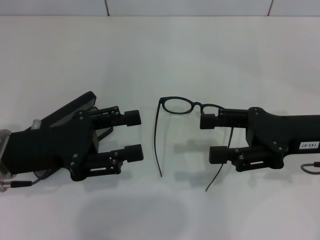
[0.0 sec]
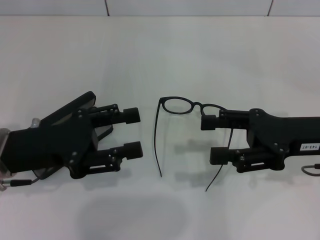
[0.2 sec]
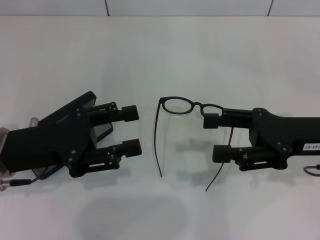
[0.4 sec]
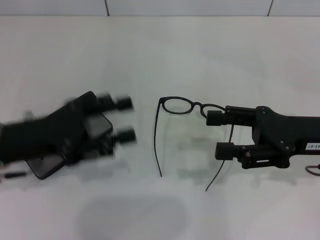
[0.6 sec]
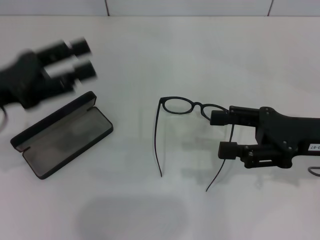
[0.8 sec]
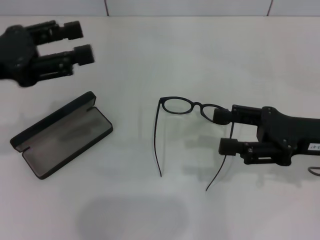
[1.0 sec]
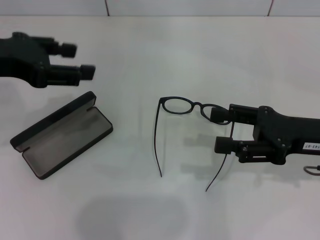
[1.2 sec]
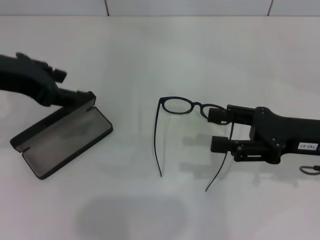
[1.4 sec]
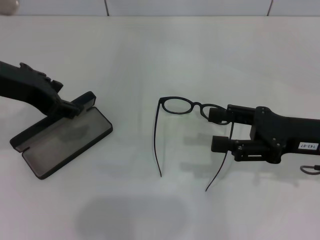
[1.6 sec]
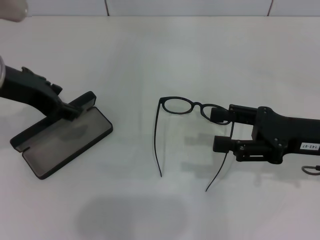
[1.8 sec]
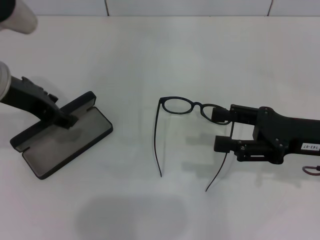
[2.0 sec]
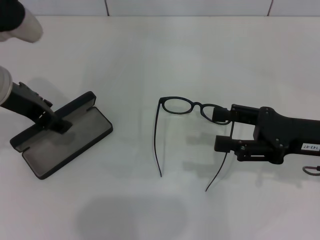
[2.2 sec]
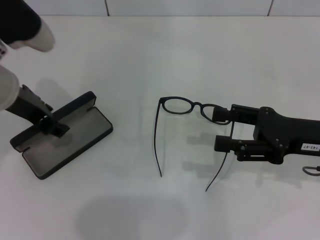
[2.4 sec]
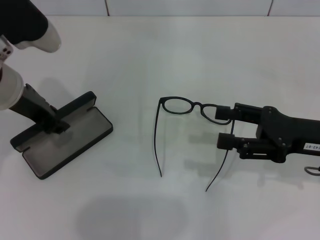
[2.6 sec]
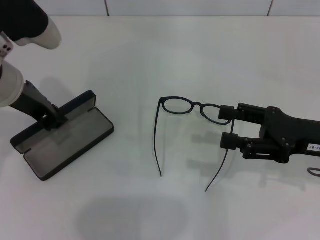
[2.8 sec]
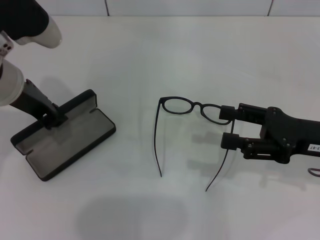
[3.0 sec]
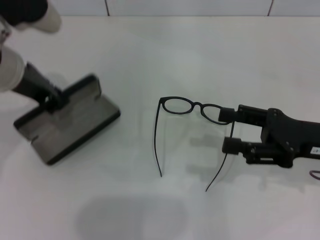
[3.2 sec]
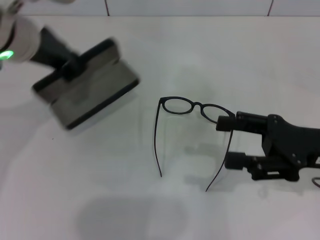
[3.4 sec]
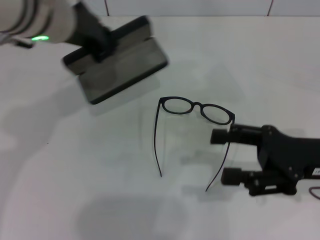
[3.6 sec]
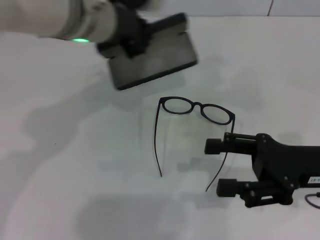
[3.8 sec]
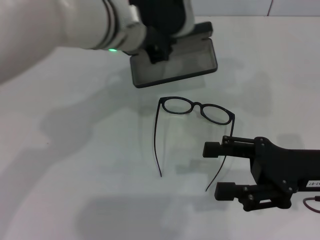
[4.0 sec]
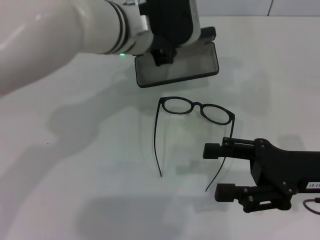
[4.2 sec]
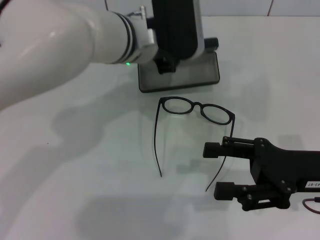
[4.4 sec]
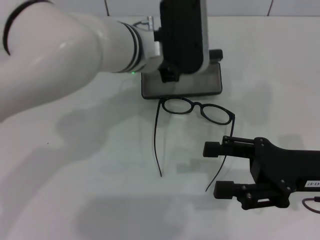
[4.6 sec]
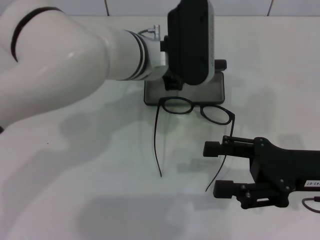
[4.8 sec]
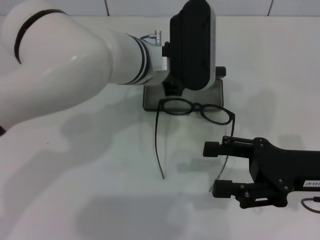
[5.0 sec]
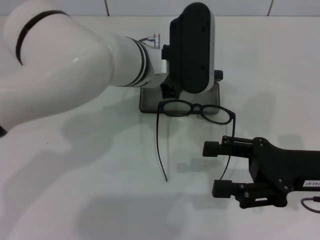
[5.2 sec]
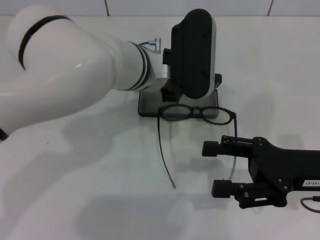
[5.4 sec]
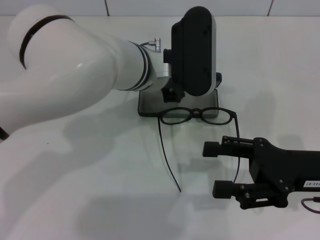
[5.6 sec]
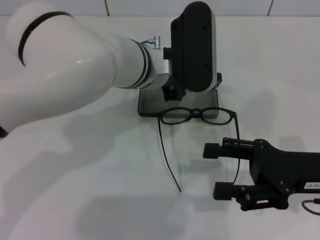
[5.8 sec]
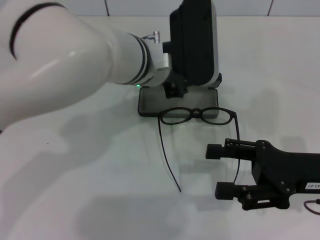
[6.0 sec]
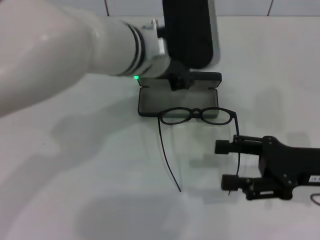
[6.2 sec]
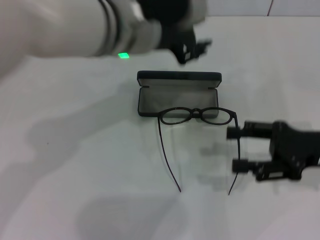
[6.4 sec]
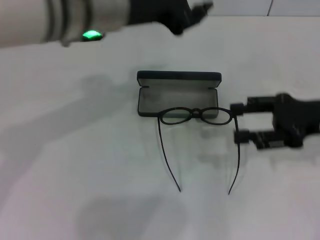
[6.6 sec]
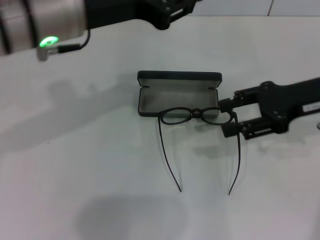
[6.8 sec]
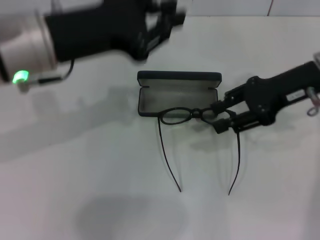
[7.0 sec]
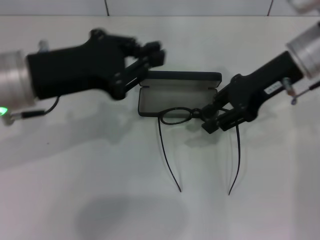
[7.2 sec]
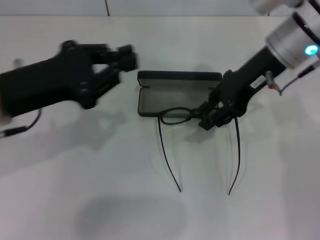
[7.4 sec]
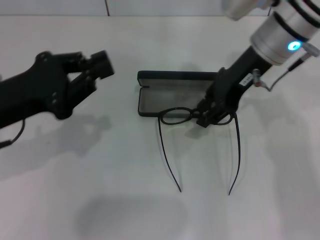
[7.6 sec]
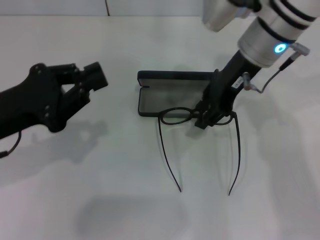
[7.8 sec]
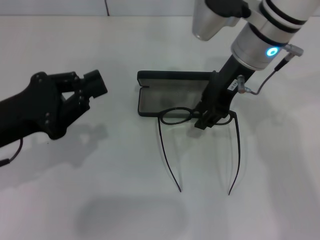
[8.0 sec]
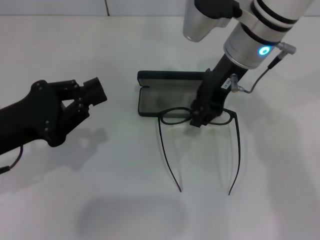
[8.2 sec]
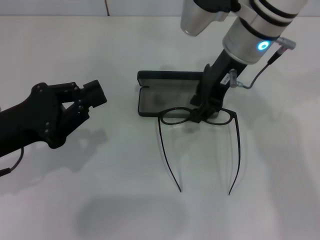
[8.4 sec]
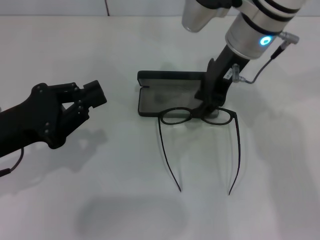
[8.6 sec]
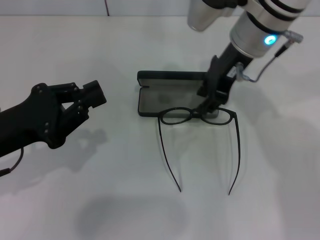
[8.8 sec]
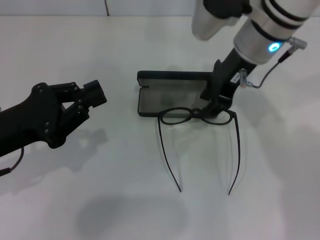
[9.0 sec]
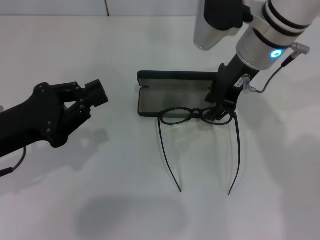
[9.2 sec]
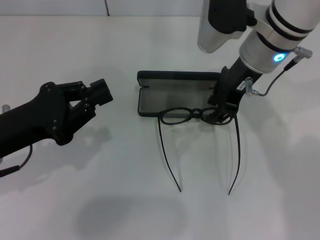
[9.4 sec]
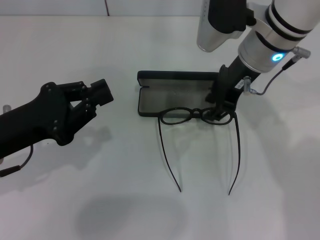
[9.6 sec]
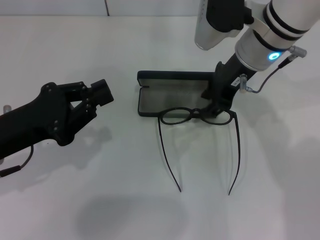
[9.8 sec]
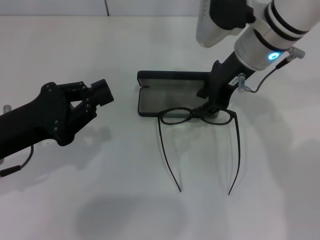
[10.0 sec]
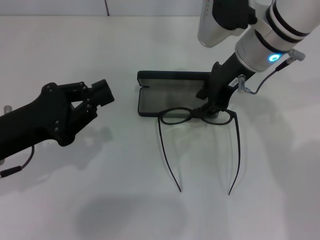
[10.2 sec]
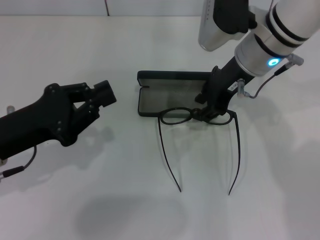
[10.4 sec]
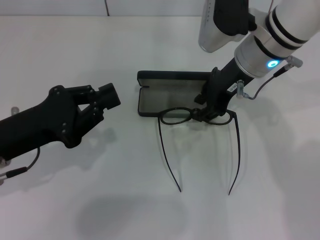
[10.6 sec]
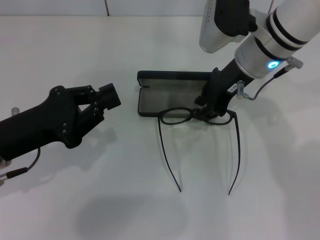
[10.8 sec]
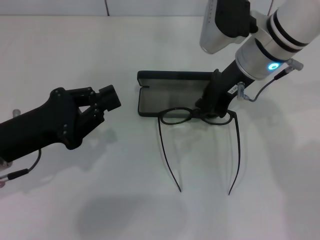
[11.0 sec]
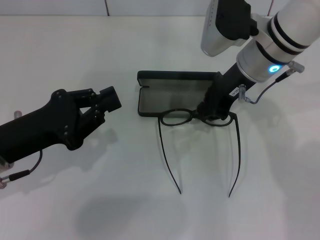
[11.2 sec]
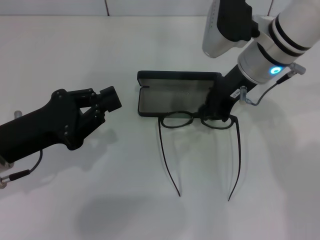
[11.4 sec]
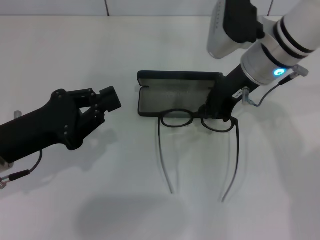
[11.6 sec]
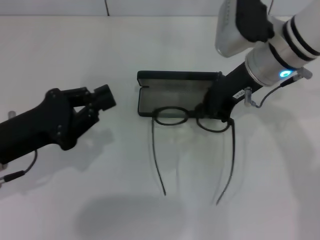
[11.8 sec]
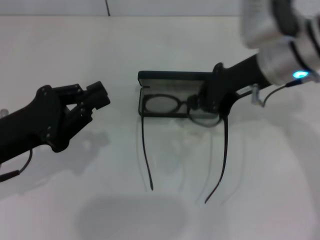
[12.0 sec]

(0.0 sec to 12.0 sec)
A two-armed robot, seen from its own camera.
Step, 0.0 sec - 2.8 sec: Grab the glasses case with your left hand.
Step, 3.2 sec - 5.8 sec: Place the glasses case in the center of the table with your left hand.
Step, 6.2 sec - 11.2 sec: Grab the eyeglass frame with your right hand.
0.0 sec - 1.6 sec: The left gripper goes about 15 cm upward and forward.
1.6 sec - 3.0 sec: The left gripper moves about 5 cm, and closes up.
3.0 sec - 4.4 sec: The left gripper travels to the right by some 15 cm.
6.0 sec - 7.6 sec: The right gripper moves forward, to the left and upward, approximately 20 cm, and closes up, while the left gripper goes about 25 cm to the left and backward, and closes.
7.6 sec - 10.4 sec: The grippers move only a little.
10.4 sec - 12.0 sec: The right gripper closes.

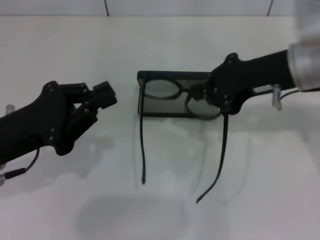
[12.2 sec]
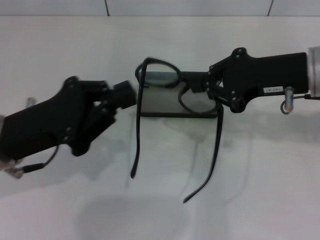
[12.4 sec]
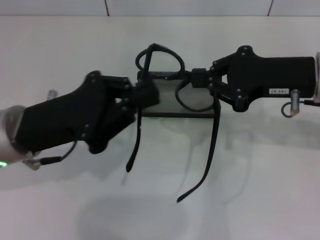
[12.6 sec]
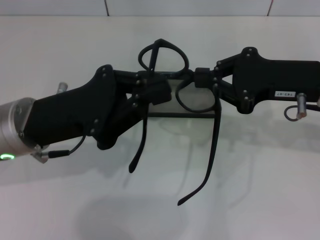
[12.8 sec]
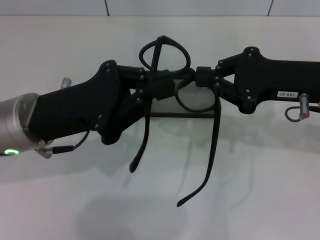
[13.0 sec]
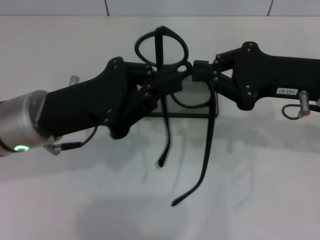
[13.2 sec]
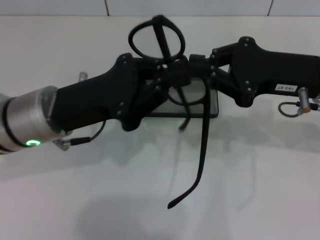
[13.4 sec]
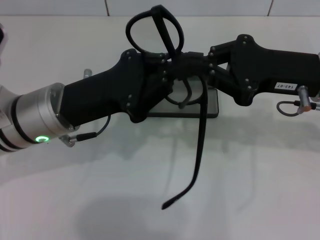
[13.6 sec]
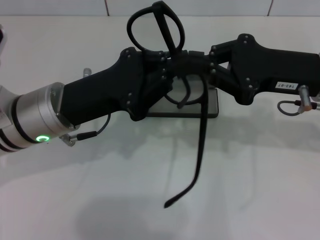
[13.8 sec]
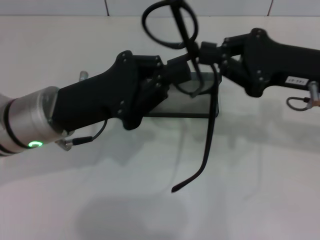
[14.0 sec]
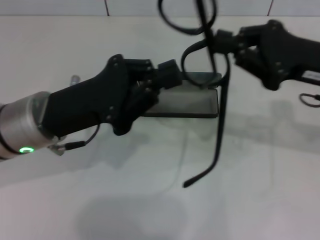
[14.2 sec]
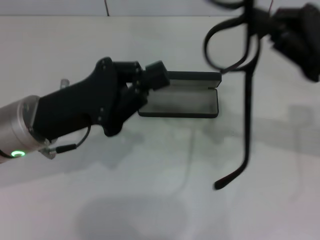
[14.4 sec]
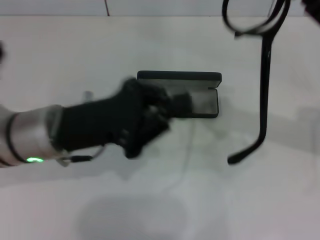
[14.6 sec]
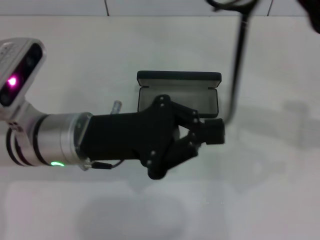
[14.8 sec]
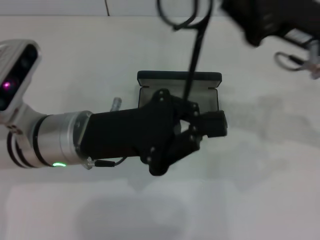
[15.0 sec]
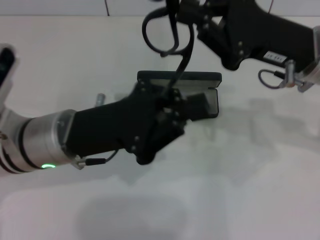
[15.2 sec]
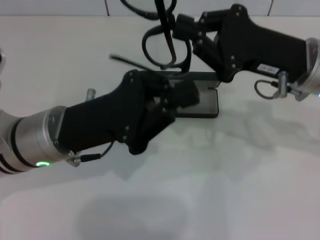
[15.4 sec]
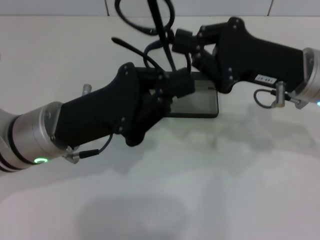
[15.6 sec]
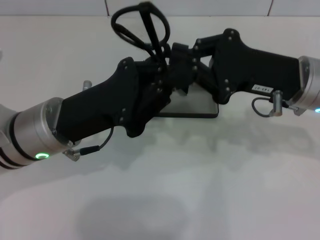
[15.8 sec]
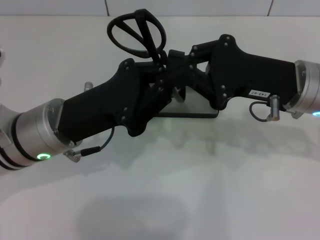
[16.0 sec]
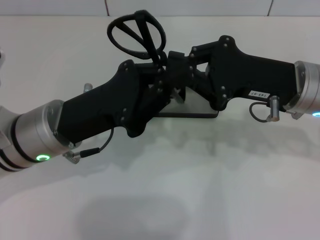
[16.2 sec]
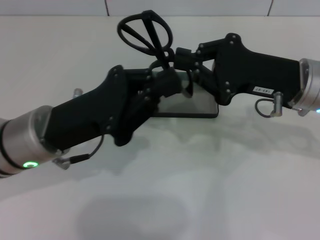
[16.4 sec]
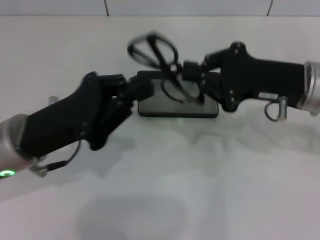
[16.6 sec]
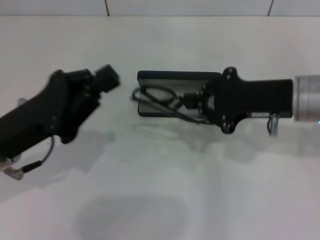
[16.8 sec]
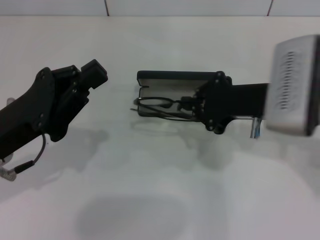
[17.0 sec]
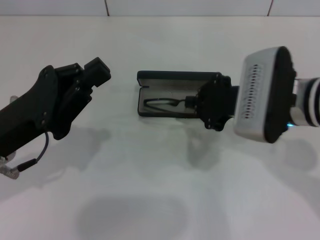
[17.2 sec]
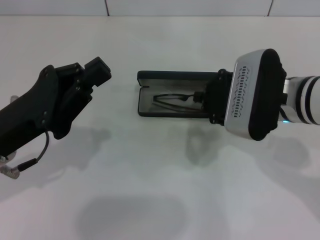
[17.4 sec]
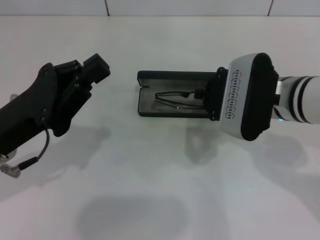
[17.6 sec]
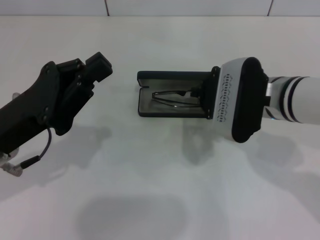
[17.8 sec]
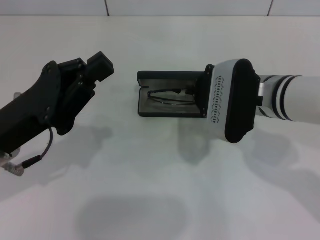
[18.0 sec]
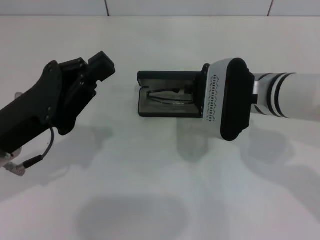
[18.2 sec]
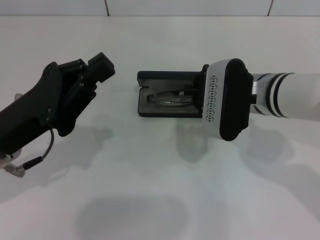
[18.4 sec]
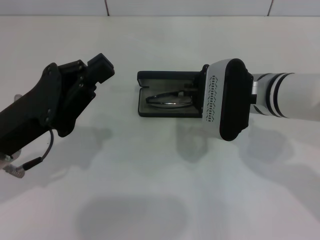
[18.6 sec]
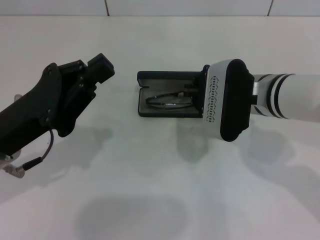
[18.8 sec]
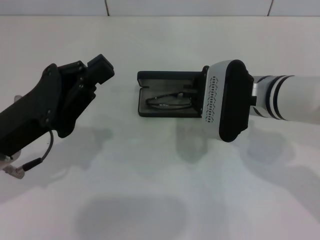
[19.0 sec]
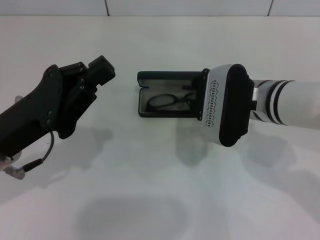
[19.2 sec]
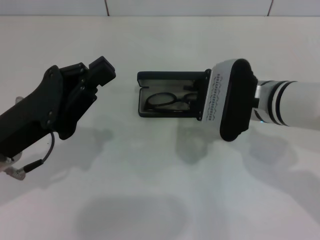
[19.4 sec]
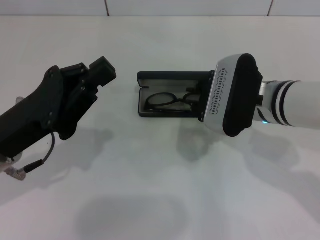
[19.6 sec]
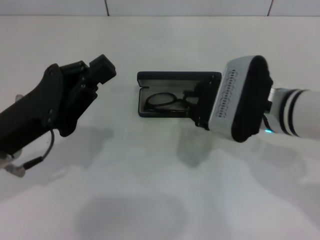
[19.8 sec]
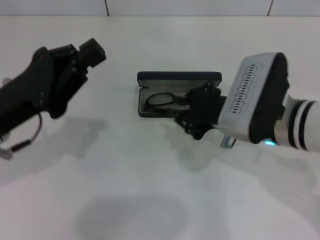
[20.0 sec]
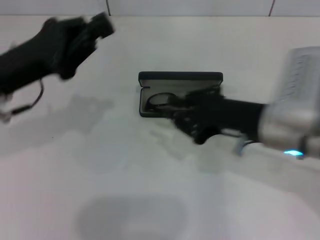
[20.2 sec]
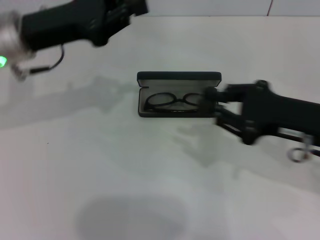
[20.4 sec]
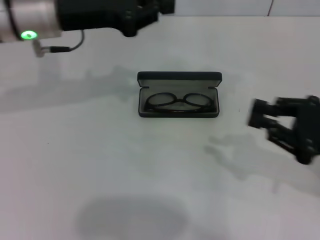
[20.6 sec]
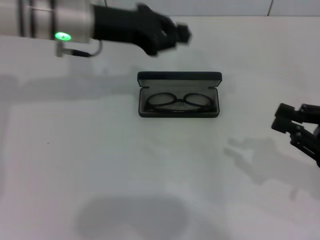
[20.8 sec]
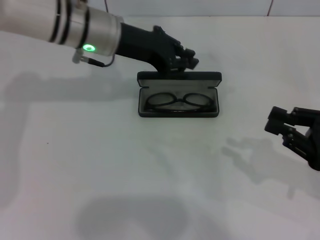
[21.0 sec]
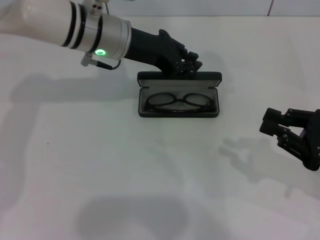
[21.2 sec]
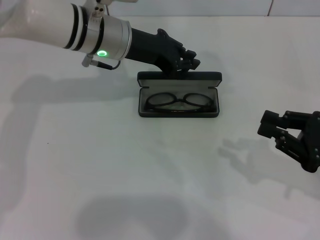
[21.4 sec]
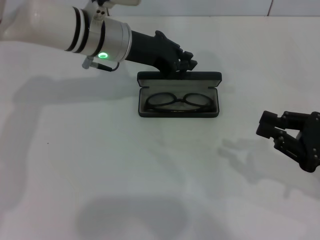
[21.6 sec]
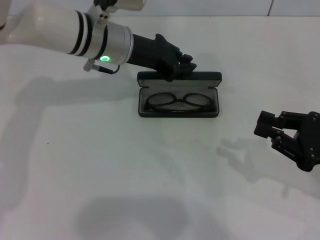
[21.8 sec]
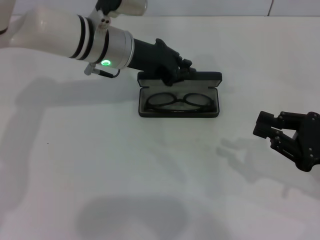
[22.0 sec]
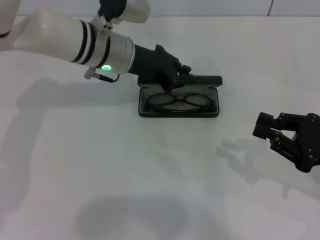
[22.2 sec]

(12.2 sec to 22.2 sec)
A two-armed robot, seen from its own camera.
Step, 12.2 sec - 16.0 sec: Fold the frame with your left hand.
Step, 16.2 sec - 19.0 sec: Put the glasses into the case with your right hand.
12.2 sec - 13.6 sec: The left gripper is displaced to the right and forward by roughly 10 cm.
16.4 sec - 18.0 sec: Both grippers travel together to the left, about 5 cm.
18.0 sec - 19.4 sec: The grippers move only a little.
19.4 sec - 20.8 sec: The left gripper goes about 20 cm forward and upward. The right gripper moves to the right and backward, roughly 20 cm.
20.8 sec - 22.2 sec: The left gripper moves downward, about 5 cm.
